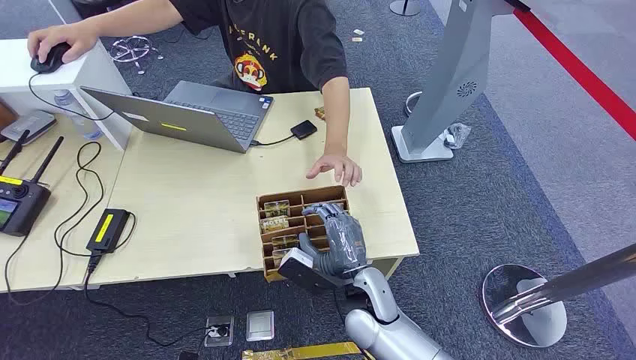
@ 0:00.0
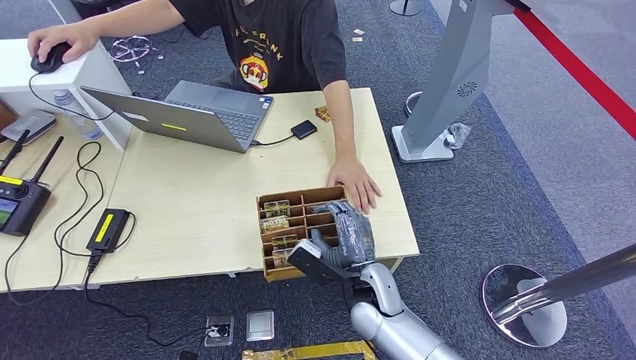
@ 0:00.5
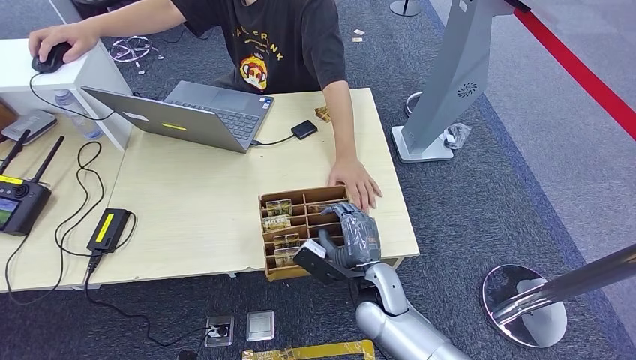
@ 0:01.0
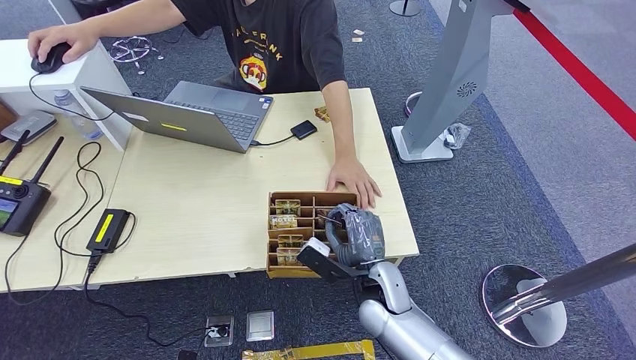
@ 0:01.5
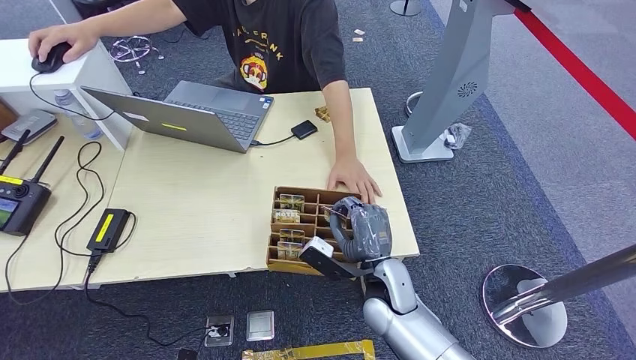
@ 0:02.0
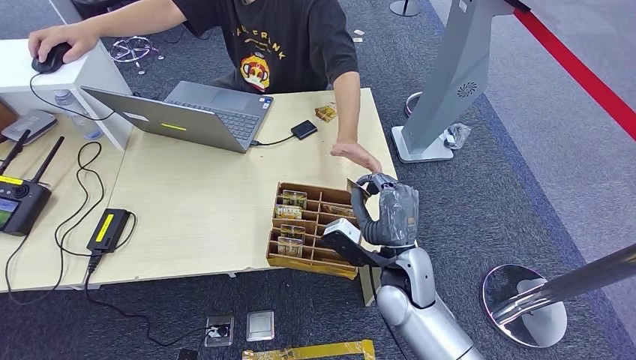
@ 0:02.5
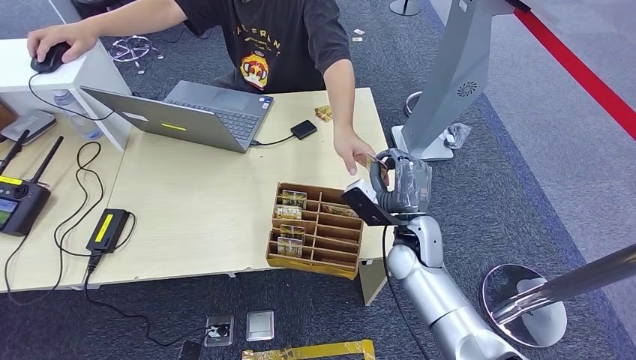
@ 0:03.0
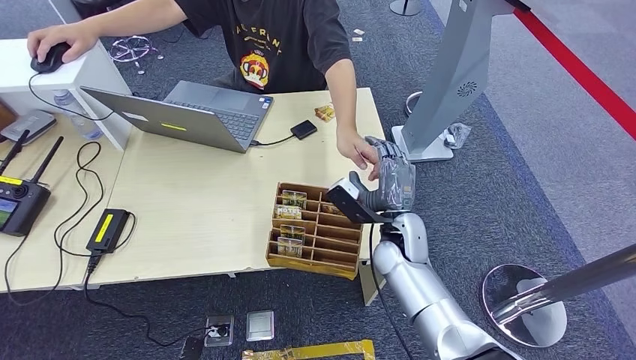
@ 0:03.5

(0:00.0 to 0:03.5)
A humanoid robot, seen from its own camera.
Step, 0:00.0 - 0:02.0: Pick up the key card from the card box.
Step, 0:02.5 - 0:03.5: Hand the key card to the target.
0:02.0 - 0:03.5: The right hand shifts about 5 cm forward.
